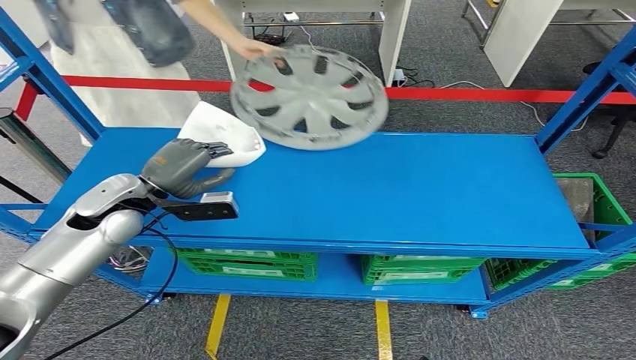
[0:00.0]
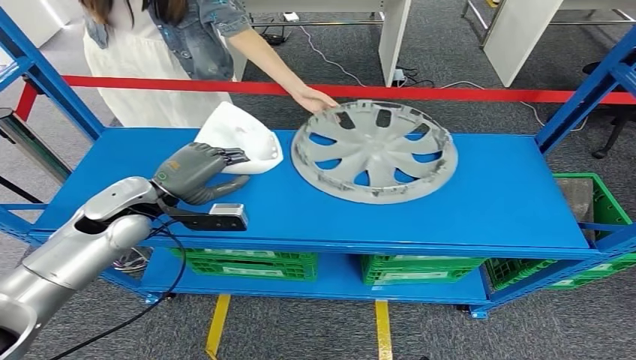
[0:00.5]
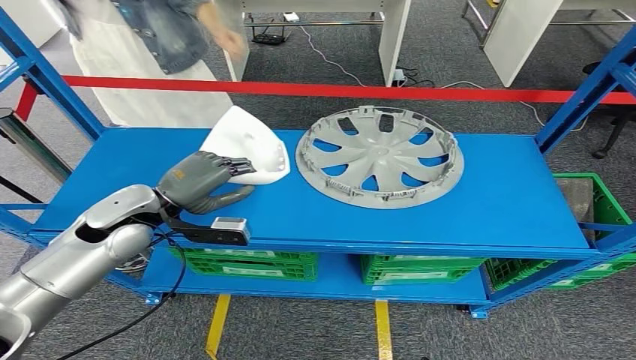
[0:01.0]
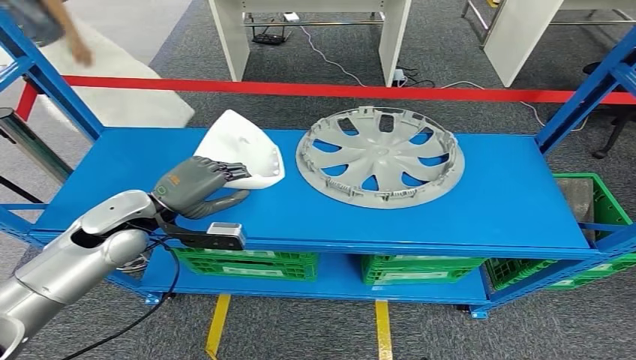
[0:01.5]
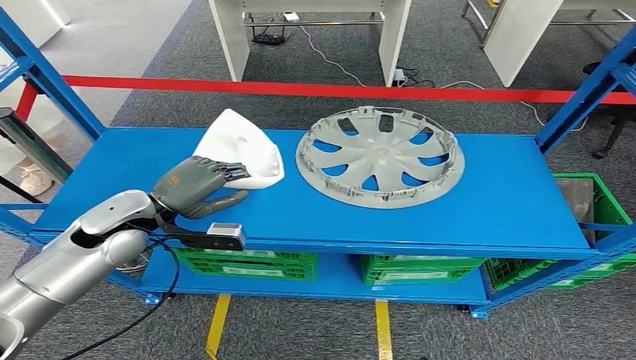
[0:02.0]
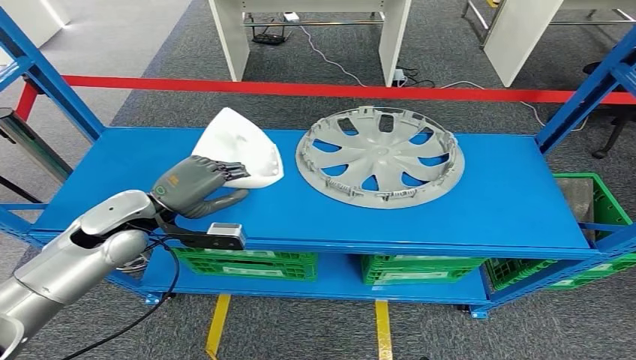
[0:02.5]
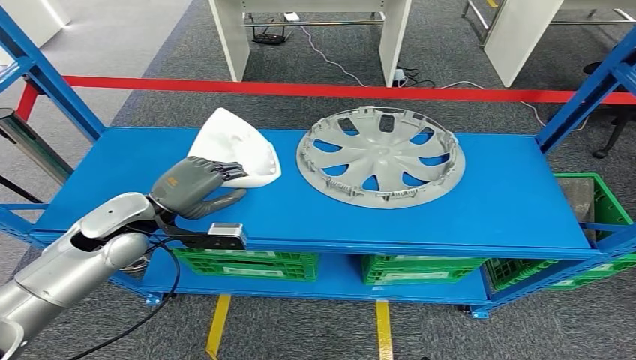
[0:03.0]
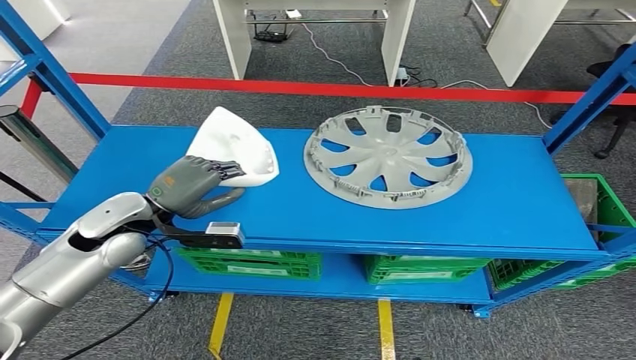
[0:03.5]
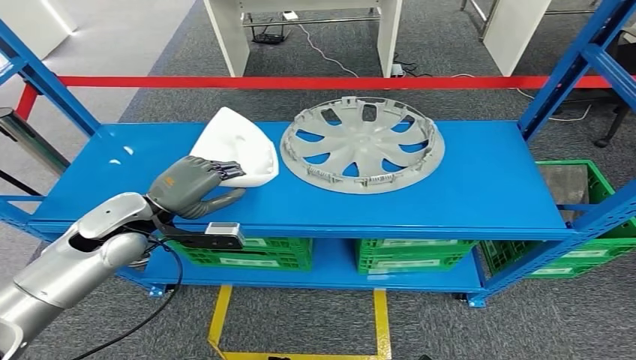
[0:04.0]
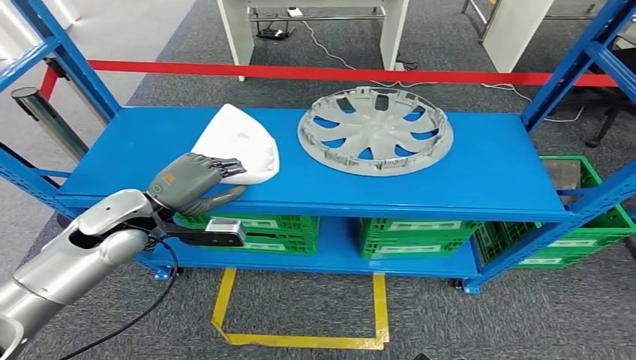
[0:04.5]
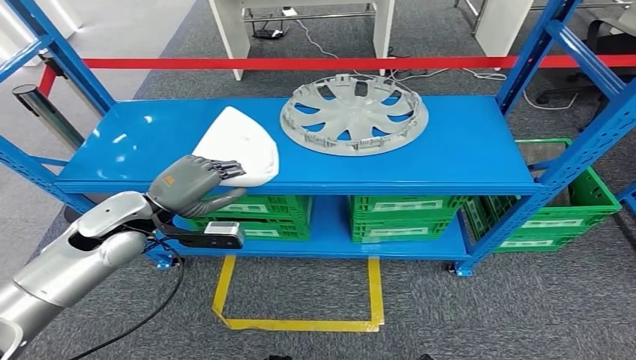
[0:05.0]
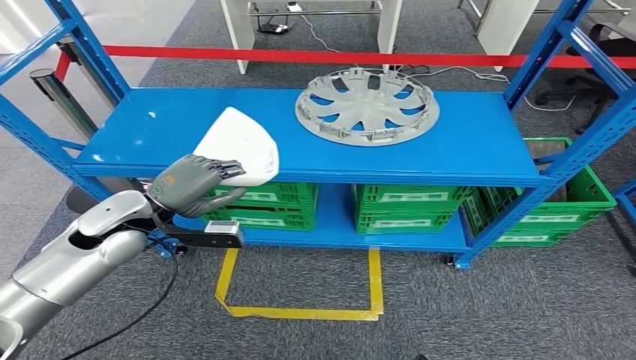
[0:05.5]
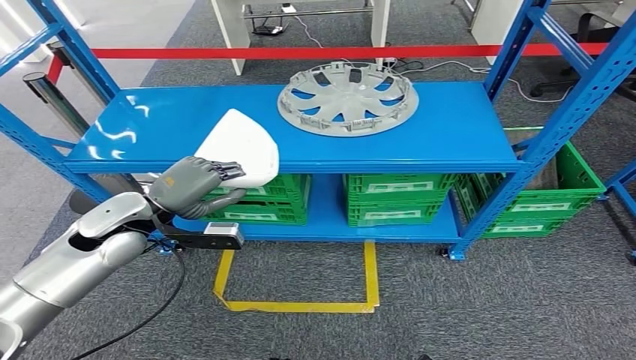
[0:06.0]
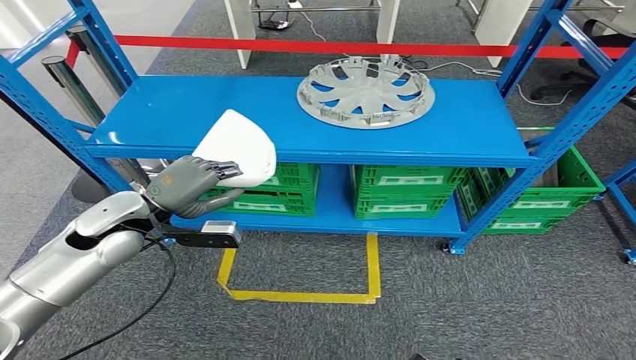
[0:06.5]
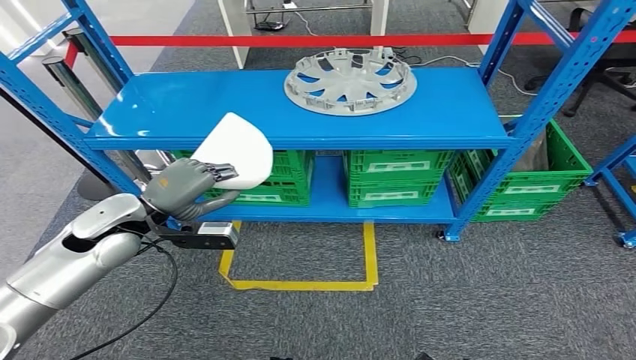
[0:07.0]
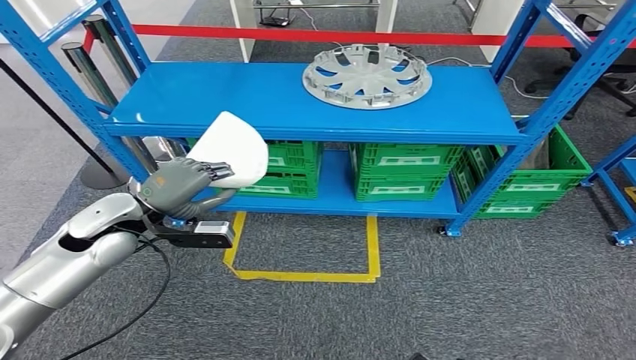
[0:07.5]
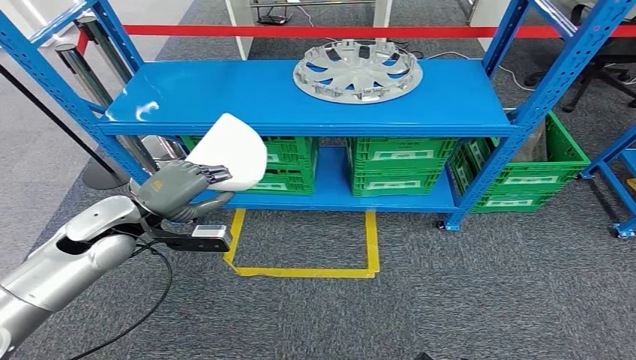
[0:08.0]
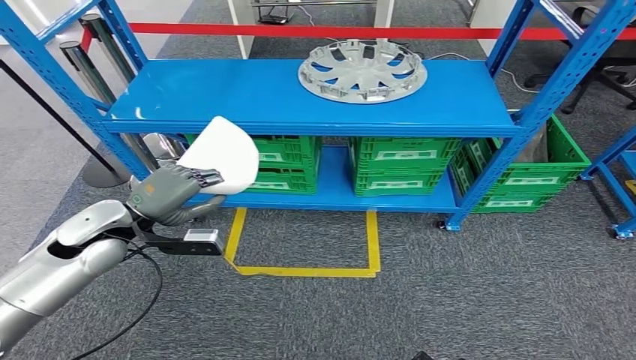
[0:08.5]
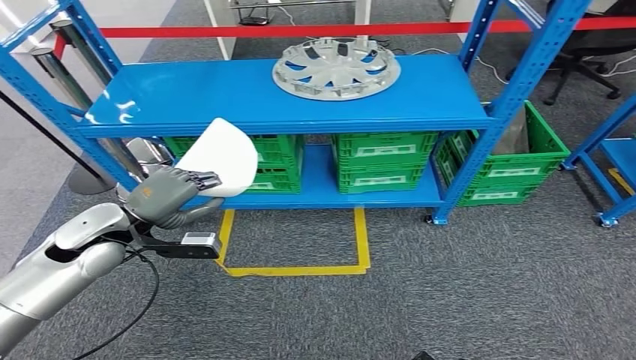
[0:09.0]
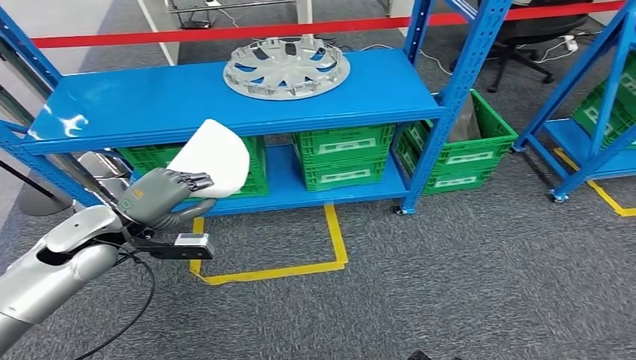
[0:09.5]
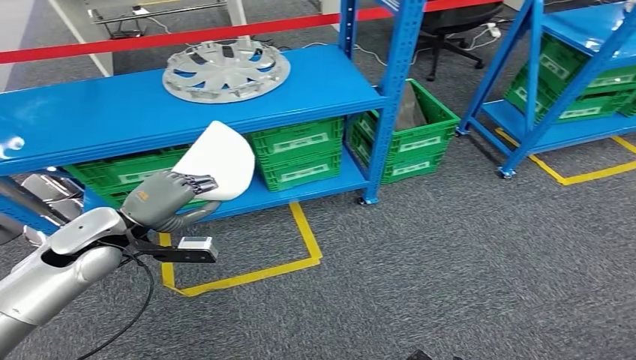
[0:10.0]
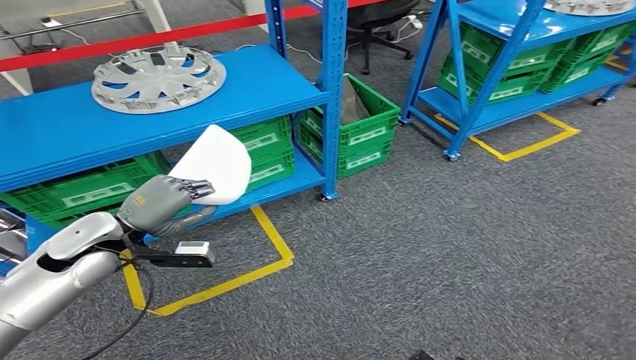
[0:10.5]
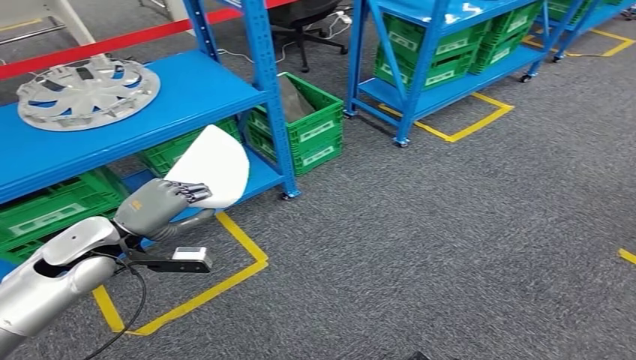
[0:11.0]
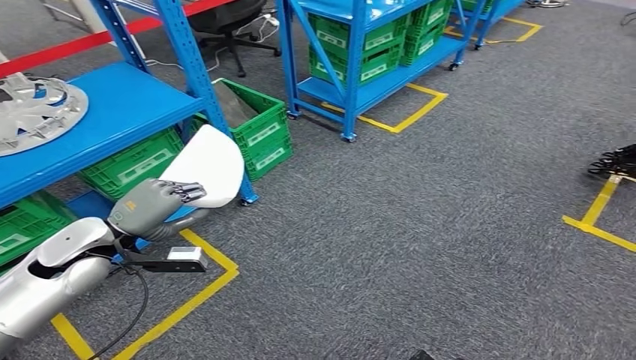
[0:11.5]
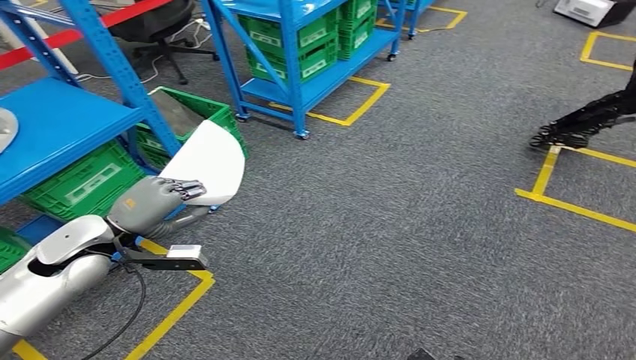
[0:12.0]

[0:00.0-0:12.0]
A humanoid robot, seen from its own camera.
Step, 0:00.0 to 0:04.5: Pick up the small component from the shelf.

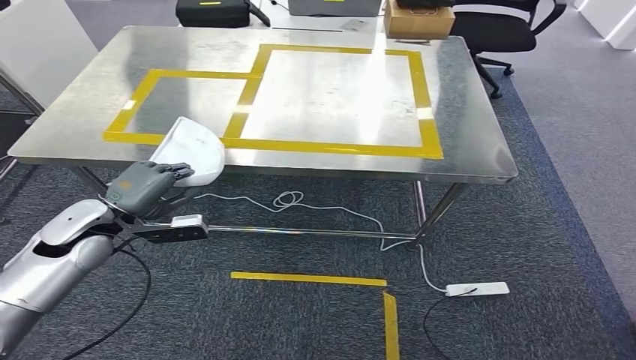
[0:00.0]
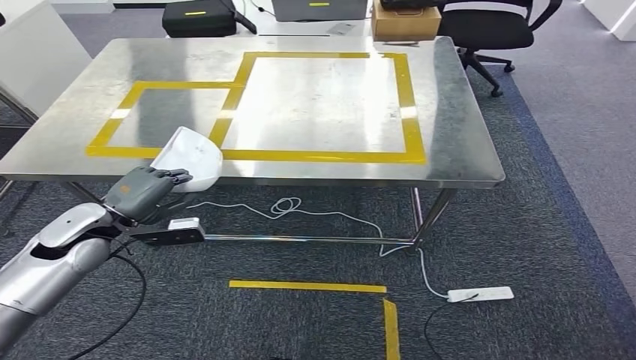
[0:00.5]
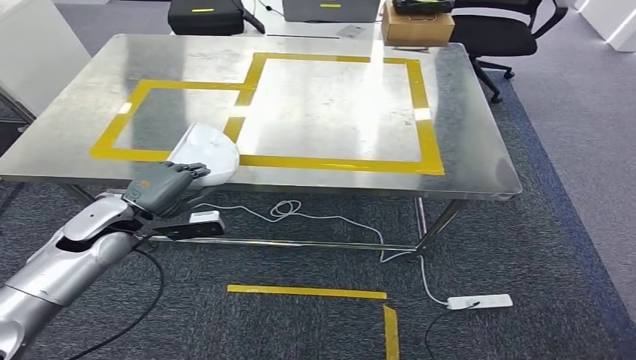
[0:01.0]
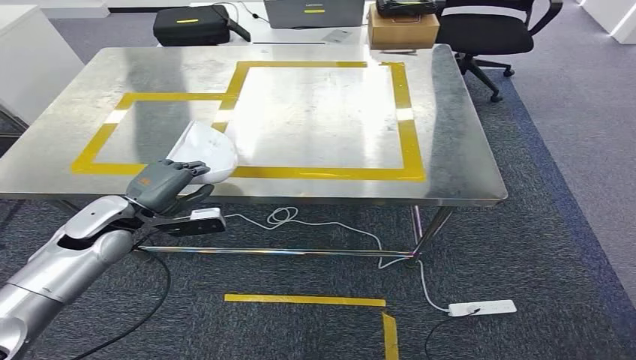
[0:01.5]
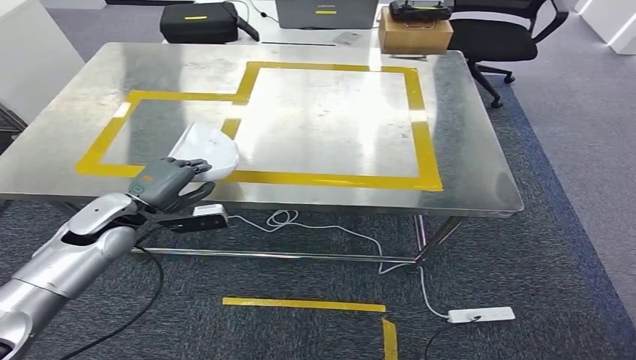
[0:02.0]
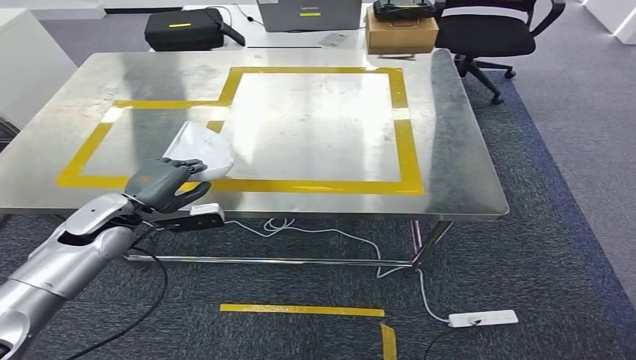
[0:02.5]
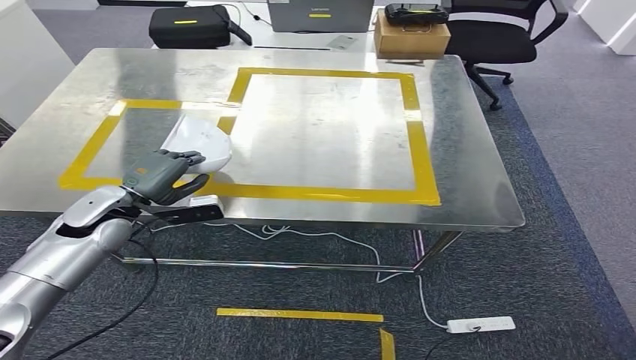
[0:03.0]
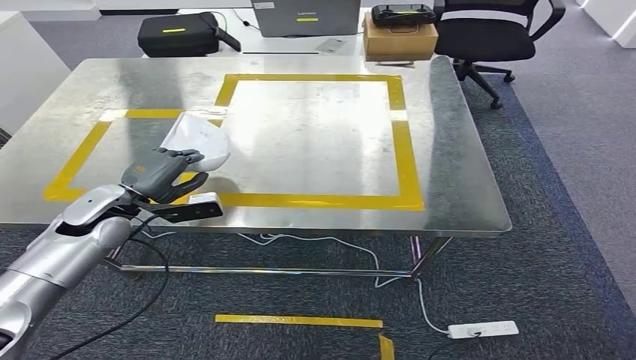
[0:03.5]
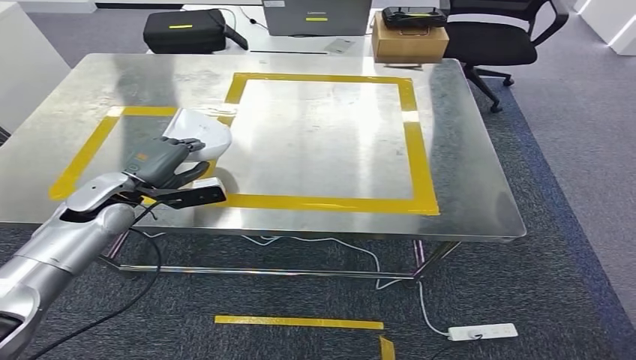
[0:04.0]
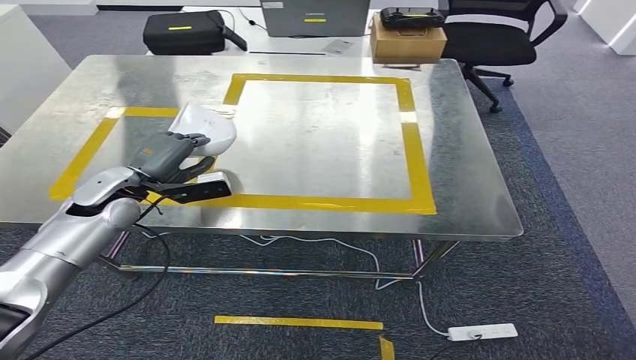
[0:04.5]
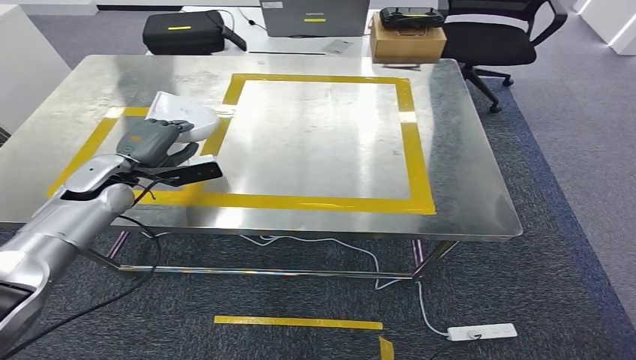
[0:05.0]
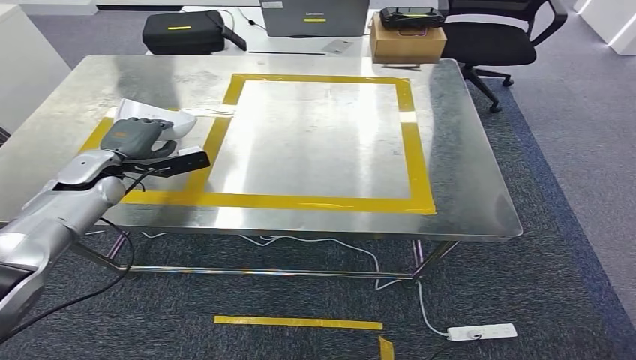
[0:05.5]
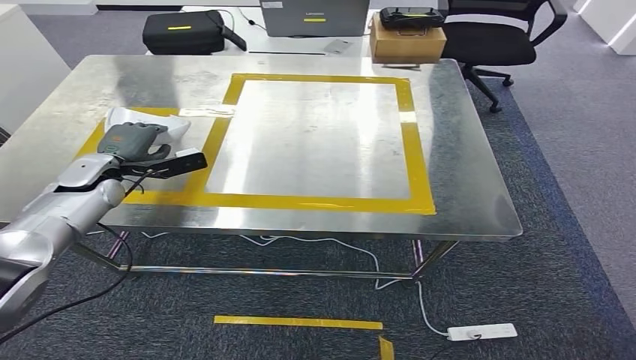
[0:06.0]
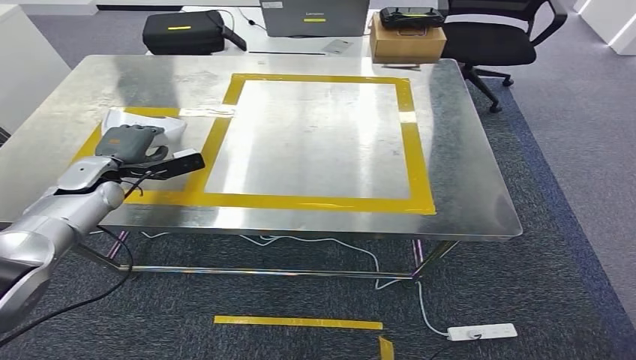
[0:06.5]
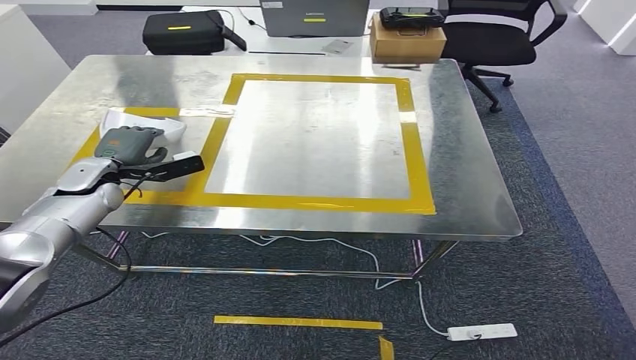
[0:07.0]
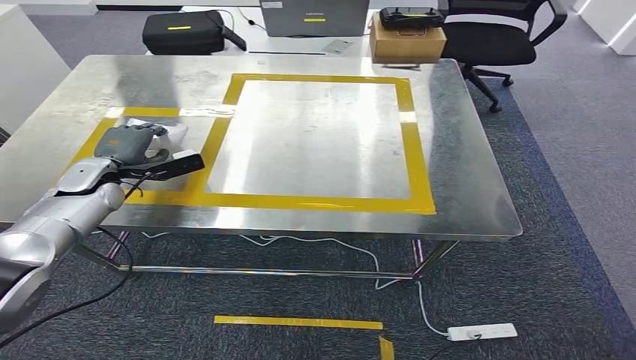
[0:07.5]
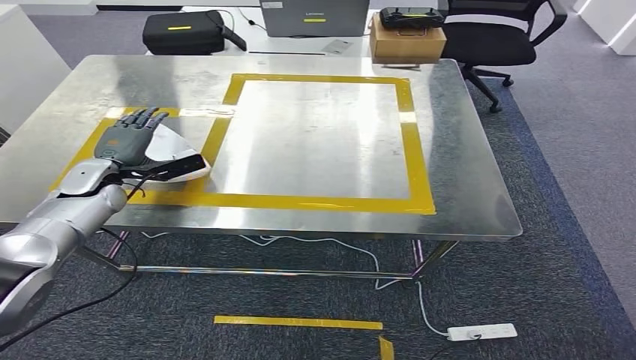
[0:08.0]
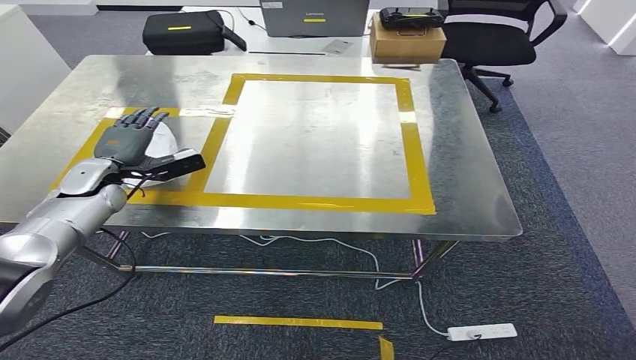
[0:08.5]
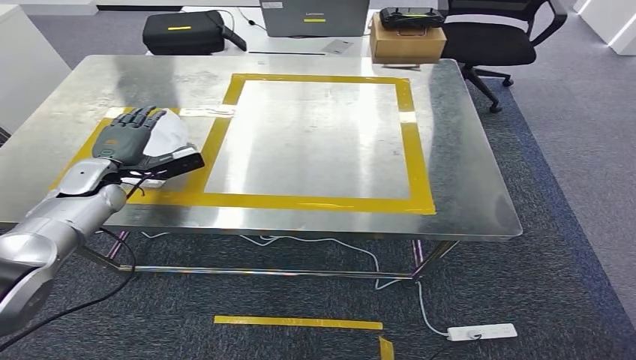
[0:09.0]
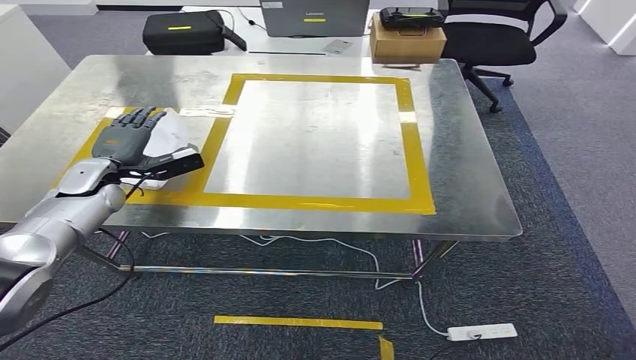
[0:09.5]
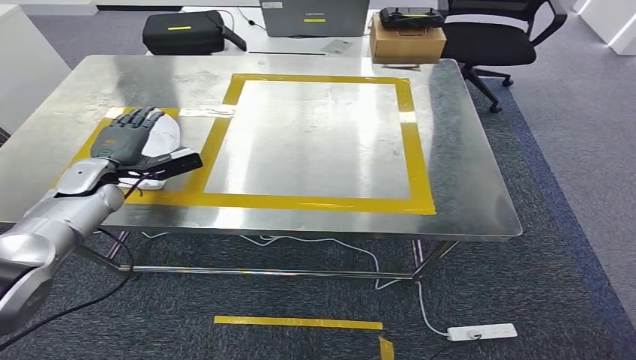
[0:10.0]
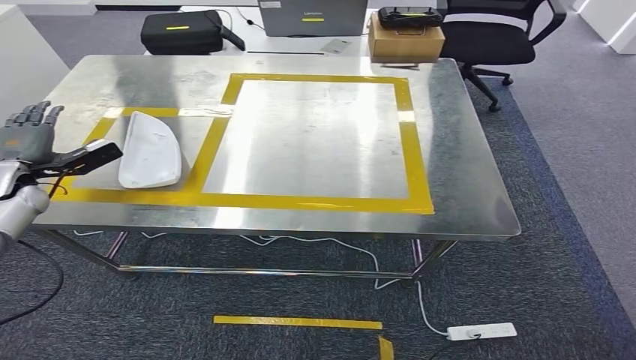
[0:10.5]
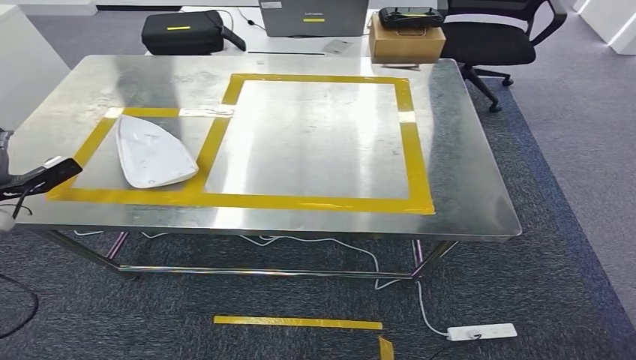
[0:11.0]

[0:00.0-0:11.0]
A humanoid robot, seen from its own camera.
Step, 0:00.0 to 0:05.5: Move the small component to the workbench.
Step, 0:06.0 to 0:10.5: Insert the small component into the corresponding slot on the workbench.
0:05.5 to 0:07.5: The hands make only small movements.
0:07.5 to 0:09.0: The two hands keep their place.
0:09.0 to 0:11.0: The left hand shifts approximately 20 cm to the left and backward.
